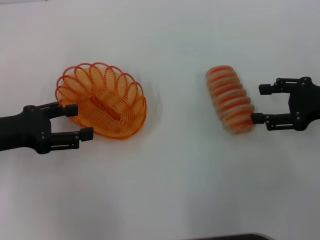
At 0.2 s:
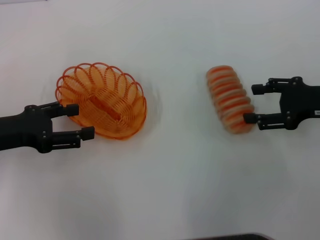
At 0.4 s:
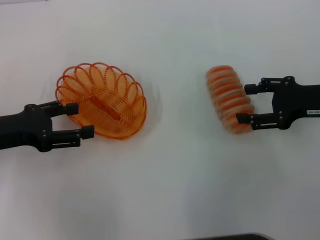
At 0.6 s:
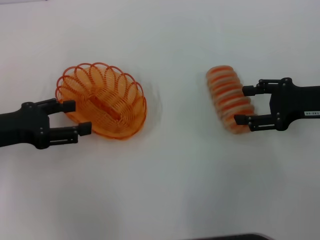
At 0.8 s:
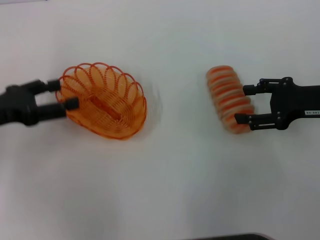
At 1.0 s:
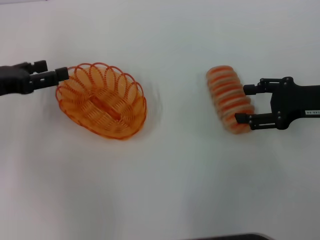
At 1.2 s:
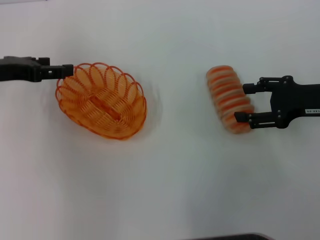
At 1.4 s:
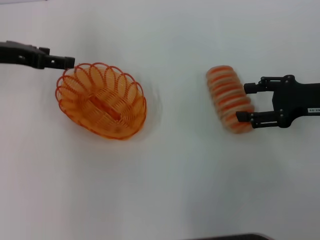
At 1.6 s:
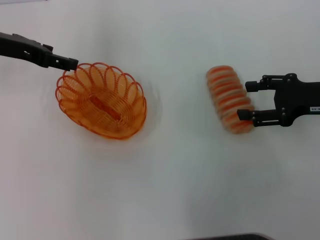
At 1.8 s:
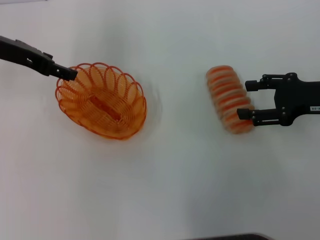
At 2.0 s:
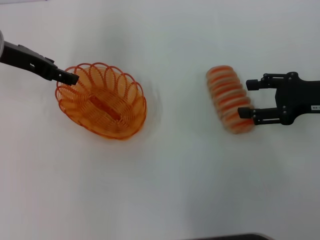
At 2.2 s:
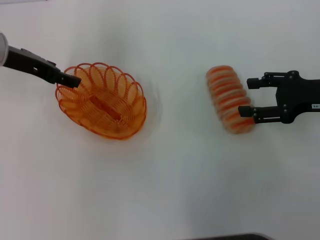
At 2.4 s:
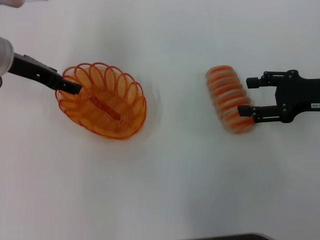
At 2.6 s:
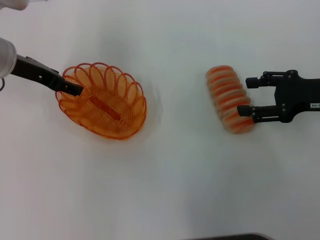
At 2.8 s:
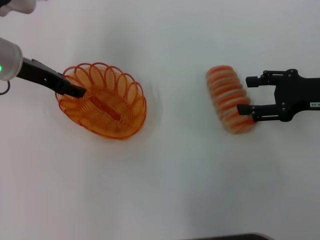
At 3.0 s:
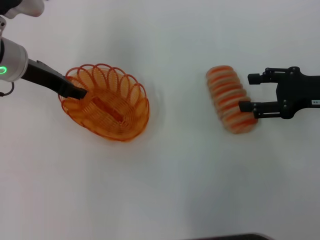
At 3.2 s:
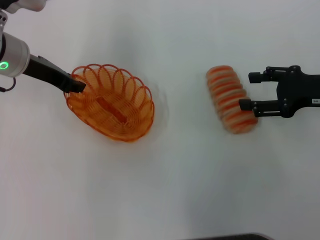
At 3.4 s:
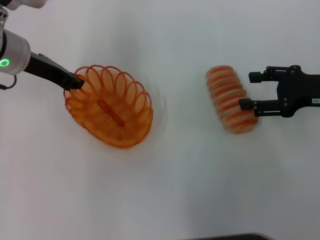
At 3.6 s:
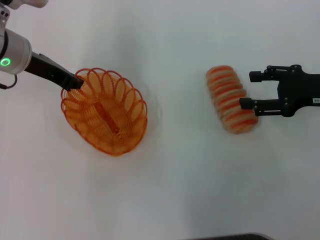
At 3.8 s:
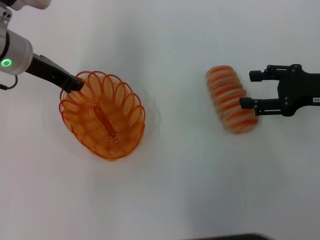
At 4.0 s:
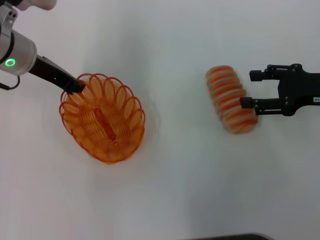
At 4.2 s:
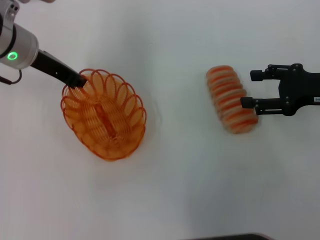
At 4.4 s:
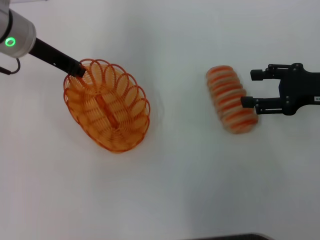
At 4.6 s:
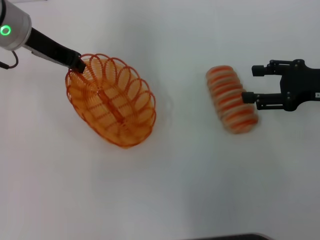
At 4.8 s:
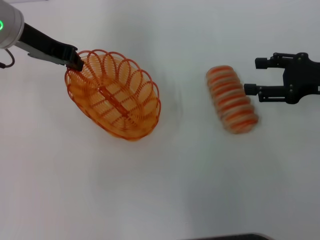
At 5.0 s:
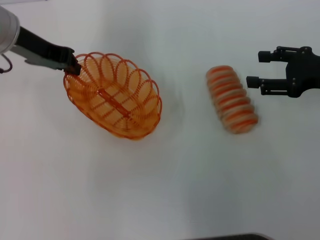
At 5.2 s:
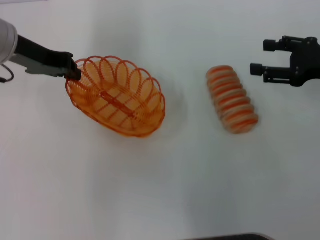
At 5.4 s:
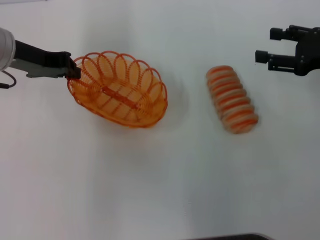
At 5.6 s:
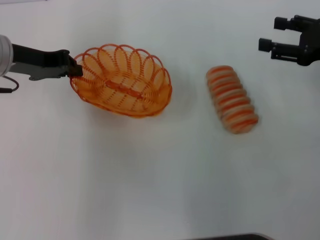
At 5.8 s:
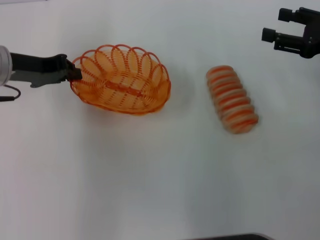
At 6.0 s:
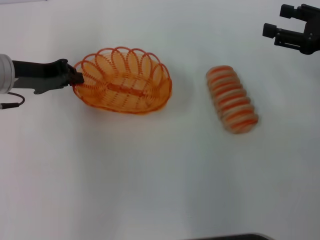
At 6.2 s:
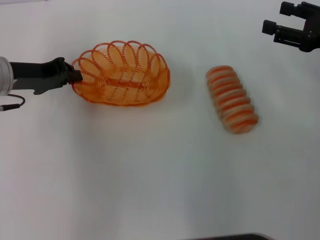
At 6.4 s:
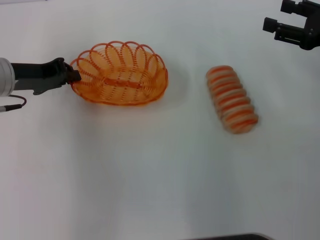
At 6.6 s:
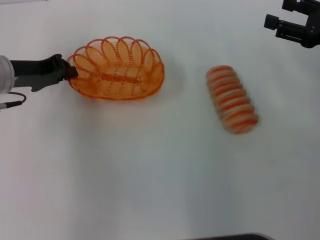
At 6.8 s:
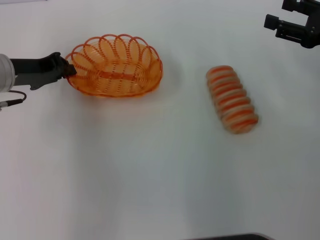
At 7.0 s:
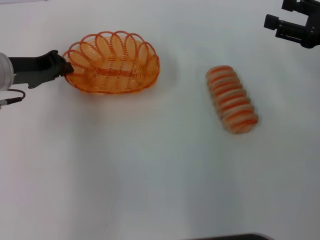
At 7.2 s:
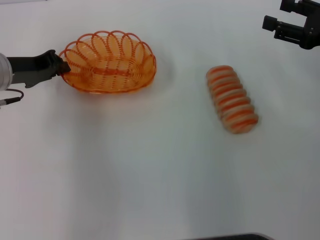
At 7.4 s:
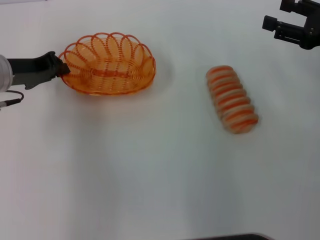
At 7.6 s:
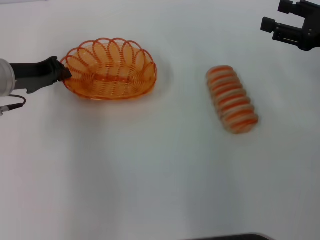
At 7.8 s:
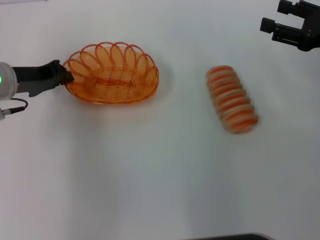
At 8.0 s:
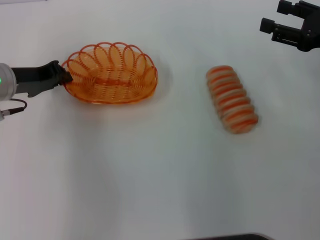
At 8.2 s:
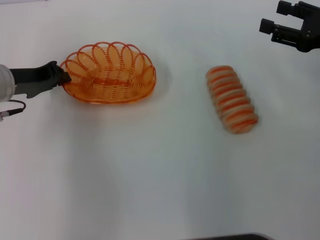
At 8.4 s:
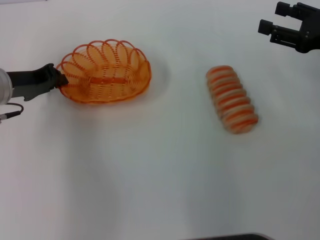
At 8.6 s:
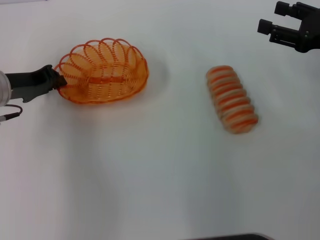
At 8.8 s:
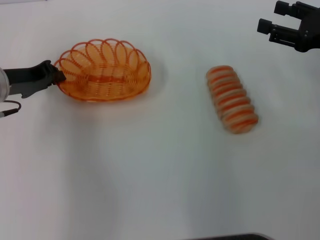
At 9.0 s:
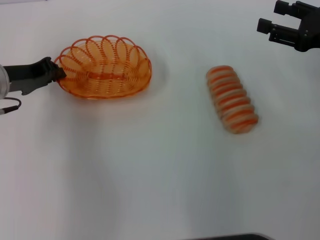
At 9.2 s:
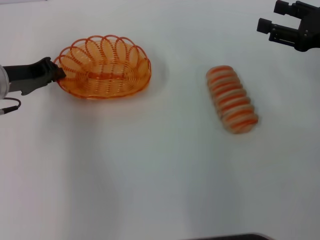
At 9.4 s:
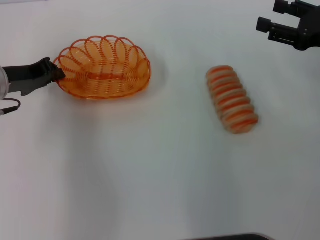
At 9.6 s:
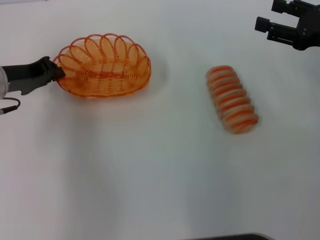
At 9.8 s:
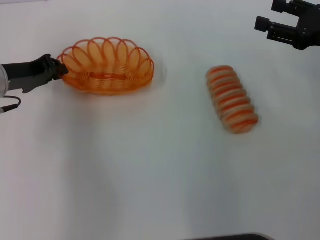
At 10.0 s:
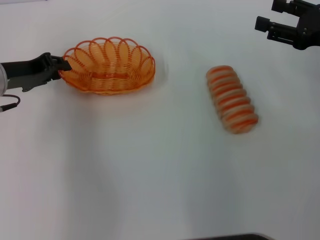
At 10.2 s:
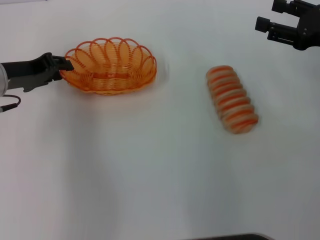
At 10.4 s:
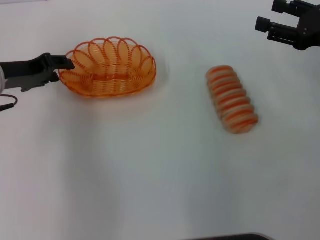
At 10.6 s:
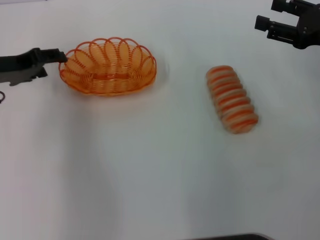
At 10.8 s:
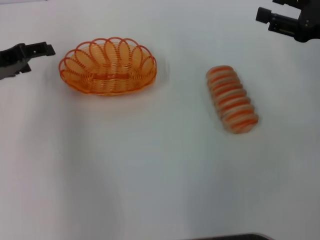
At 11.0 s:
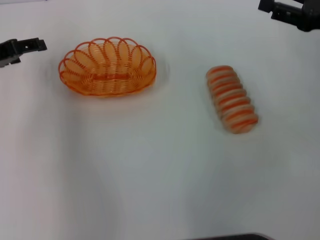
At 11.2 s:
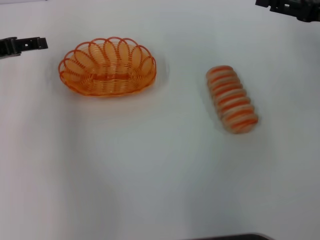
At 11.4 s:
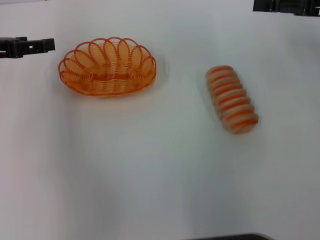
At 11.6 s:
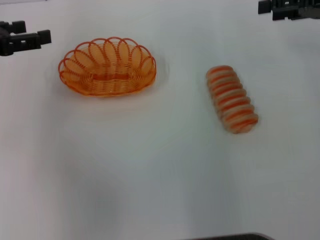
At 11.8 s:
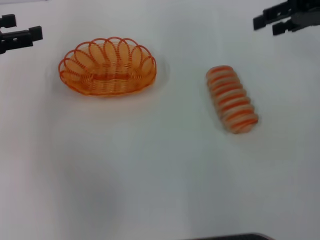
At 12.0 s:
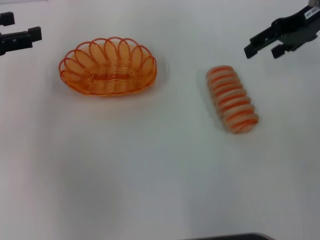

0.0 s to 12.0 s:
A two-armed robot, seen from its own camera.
Step, 0.0 to 4.2 s: Pick up the basket with the left gripper.
Step, 4.4 to 10.6 s: Place the basket in the center of view with the left gripper.
0.0 to 1.6 s: The left gripper heads forward and upward, covering approximately 15 cm.
1.6 to 3.0 s: The left gripper changes place by about 5 cm.
3.0 to 4.4 s: The left gripper closes up.
4.4 to 6.0 s: The left gripper moves about 10 cm.
6.0 to 9.0 s: The grippers make only small movements.
9.0 to 10.4 s: The left gripper opens up.
10.4 to 12.0 s: The left gripper travels to the left and upward by roughly 10 cm, and opens its fingers. Meanwhile the right gripper moves forward, upward and to the left, roughly 15 cm.

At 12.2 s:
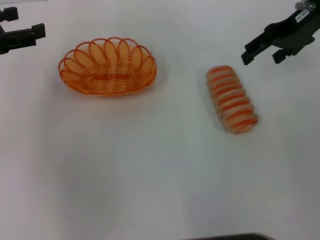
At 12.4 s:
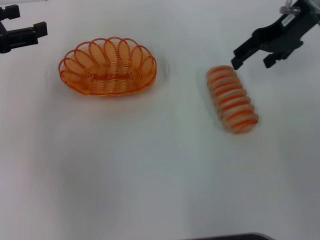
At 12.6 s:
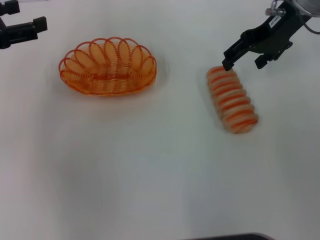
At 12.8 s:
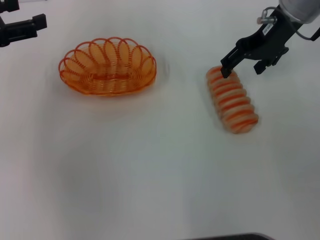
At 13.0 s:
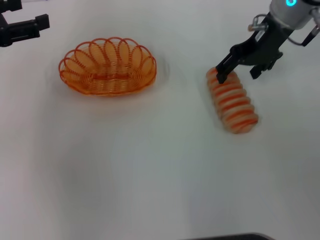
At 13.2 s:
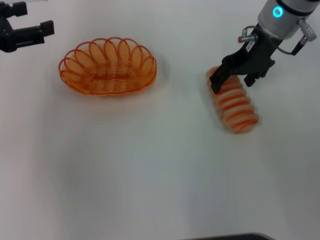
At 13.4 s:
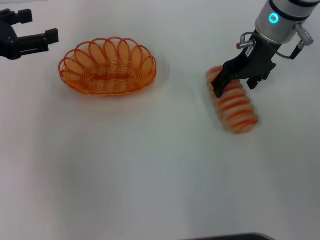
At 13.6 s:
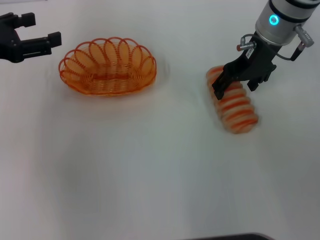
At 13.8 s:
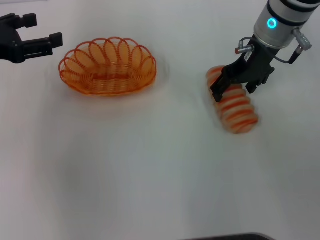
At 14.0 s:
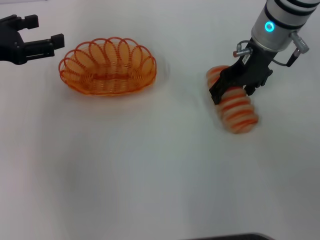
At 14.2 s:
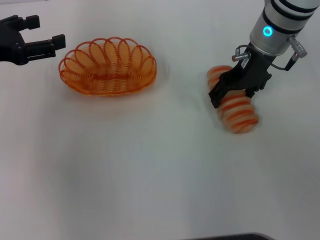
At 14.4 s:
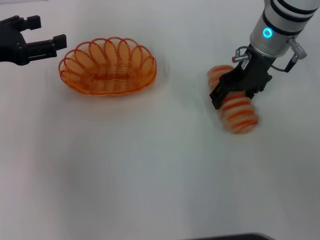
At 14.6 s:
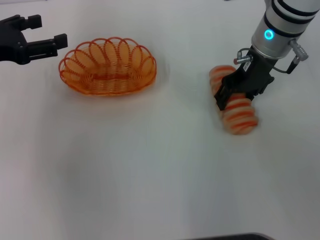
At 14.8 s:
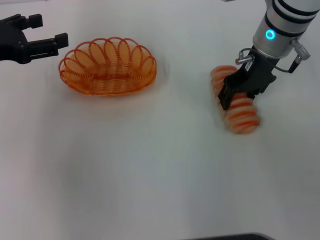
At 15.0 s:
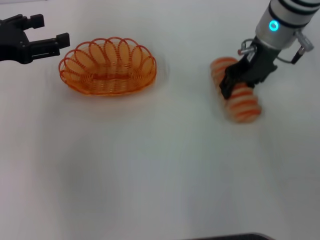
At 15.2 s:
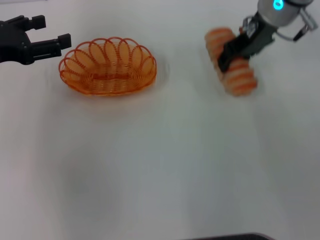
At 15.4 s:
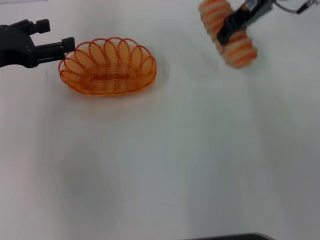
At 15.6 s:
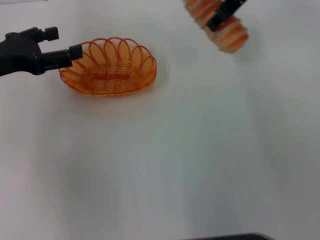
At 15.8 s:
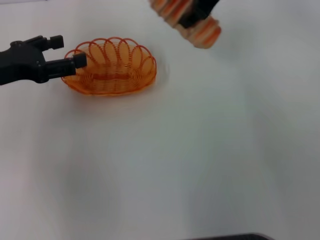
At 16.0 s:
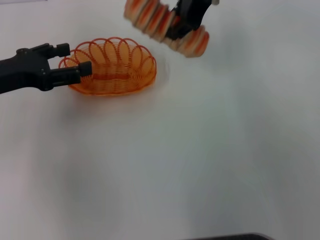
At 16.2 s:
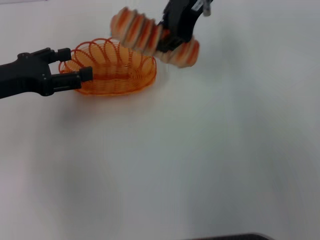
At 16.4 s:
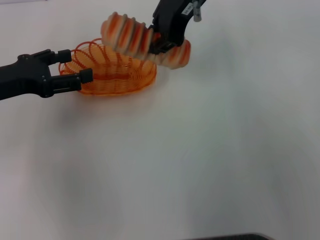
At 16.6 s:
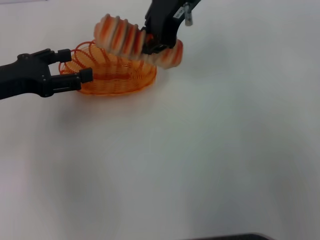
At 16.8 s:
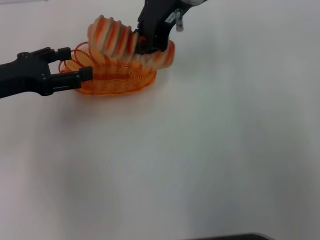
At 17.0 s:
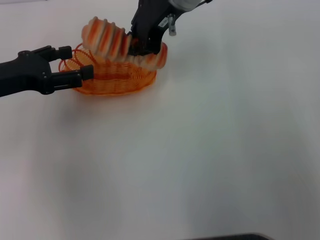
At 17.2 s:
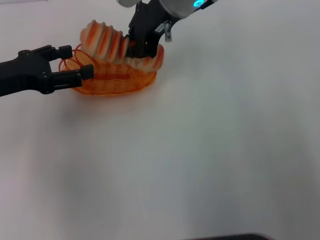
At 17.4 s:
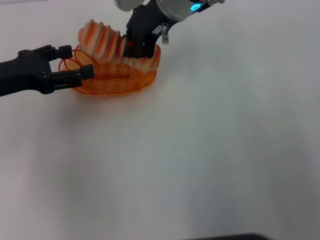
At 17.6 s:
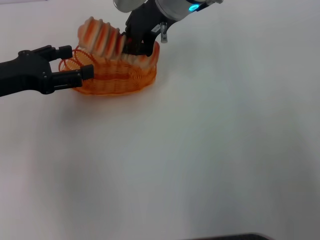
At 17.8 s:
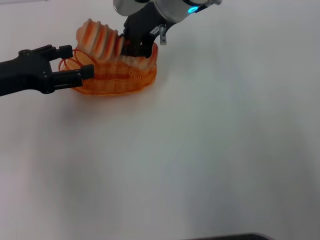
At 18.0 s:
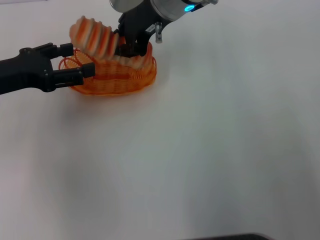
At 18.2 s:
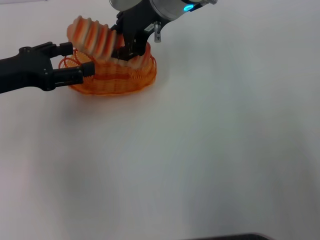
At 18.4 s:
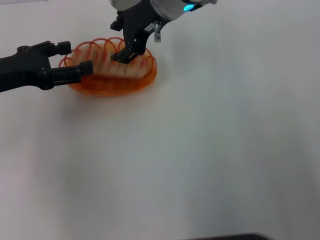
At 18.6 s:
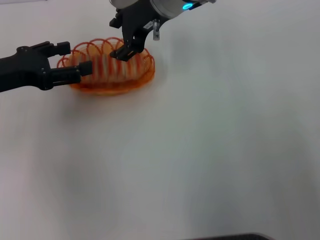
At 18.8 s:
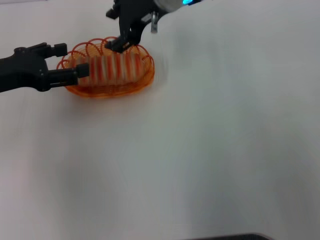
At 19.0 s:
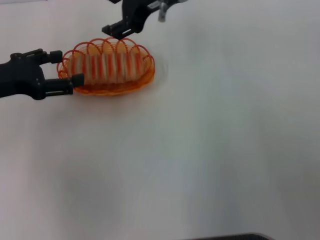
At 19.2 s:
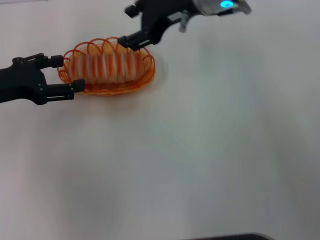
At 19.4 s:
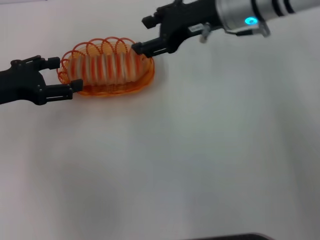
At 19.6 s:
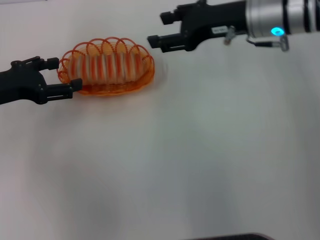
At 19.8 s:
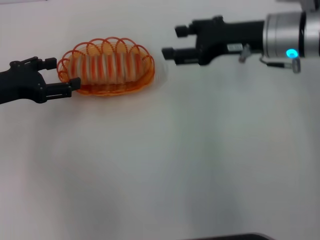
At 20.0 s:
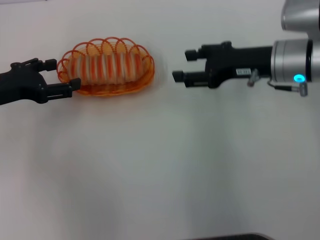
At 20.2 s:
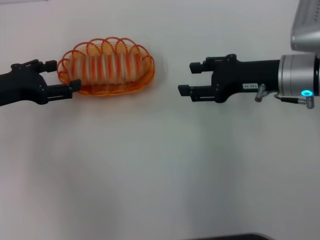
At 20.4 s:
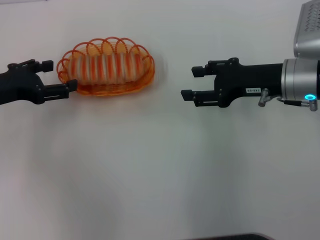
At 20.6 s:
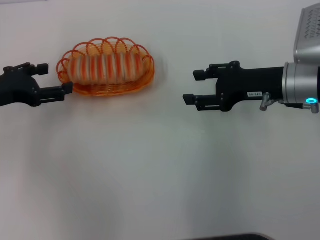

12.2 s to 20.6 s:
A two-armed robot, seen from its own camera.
Step, 12.2 to 14.8 s: Pick up the long bread with the right gripper.
Step, 15.2 to 18.6 s: Place the long bread into the basket with the right gripper.
12.2 to 13.6 s: The right gripper travels to the left by approximately 10 cm.
13.6 to 15.0 s: The right gripper closes.
15.0 to 16.4 s: The right gripper is displaced to the left and upward by roughly 15 cm, and closes its fingers.
16.4 to 17.8 s: The right gripper shifts some 5 cm downward.
17.8 to 19.2 s: The right gripper shifts about 5 cm to the right, and opens its fingers.
19.2 to 20.6 s: The right gripper goes about 20 cm to the right, downward and backward.

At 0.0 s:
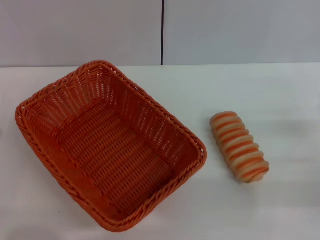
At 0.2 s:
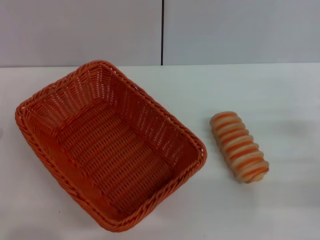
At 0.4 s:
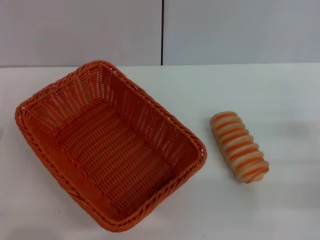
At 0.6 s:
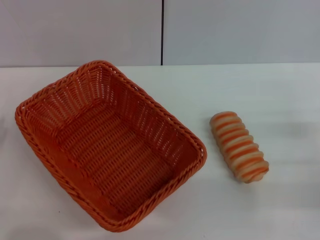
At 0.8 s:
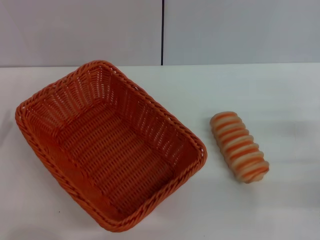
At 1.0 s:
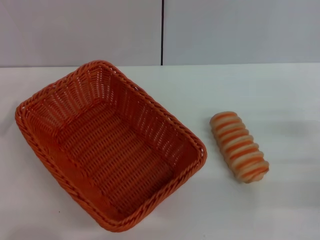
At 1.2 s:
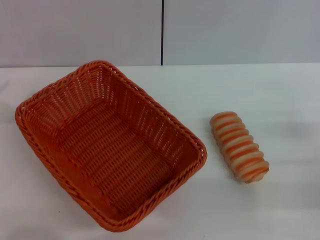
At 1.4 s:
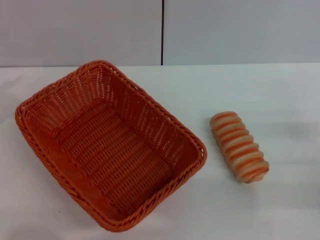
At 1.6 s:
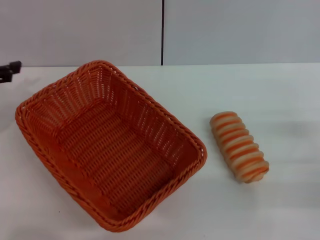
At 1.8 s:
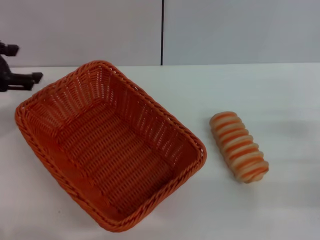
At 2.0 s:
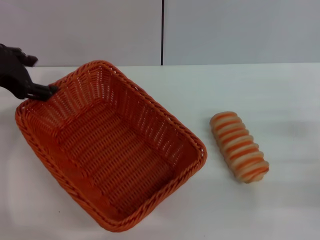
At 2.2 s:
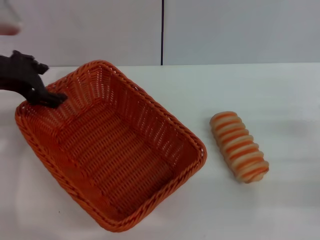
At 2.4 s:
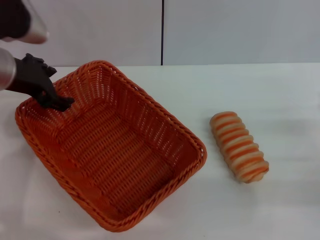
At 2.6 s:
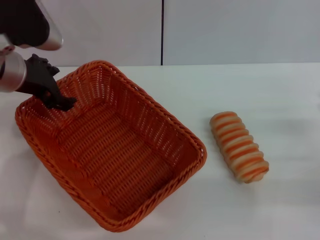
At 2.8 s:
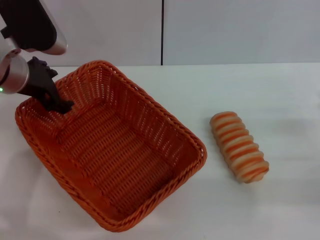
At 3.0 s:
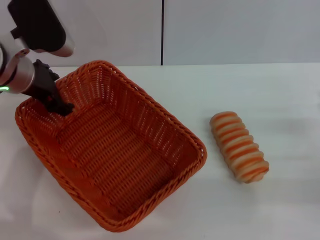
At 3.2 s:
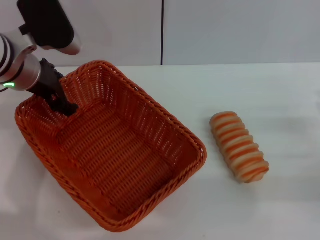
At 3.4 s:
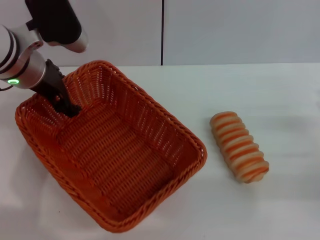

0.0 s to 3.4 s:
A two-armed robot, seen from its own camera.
1.6 to 3.4 s: The left gripper travels to the right and forward by some 15 cm.
